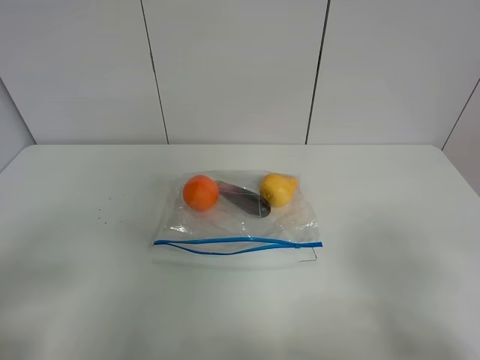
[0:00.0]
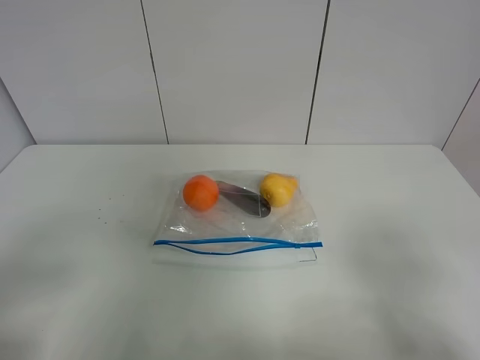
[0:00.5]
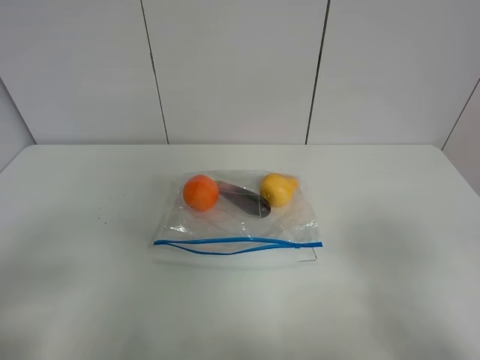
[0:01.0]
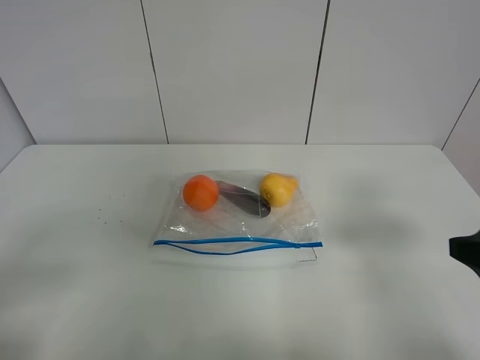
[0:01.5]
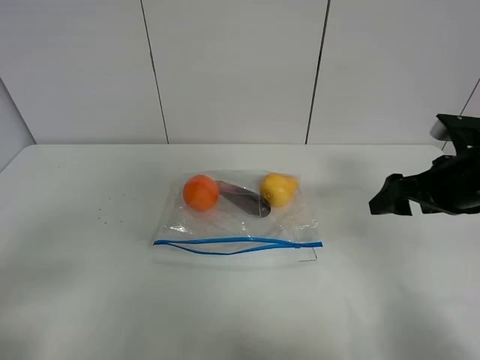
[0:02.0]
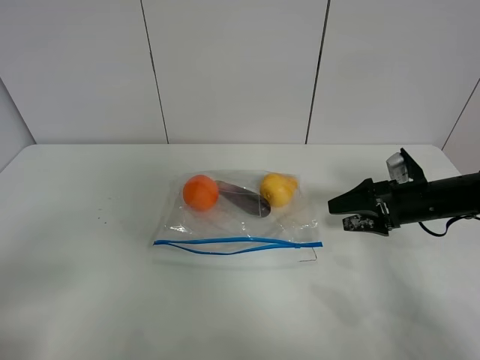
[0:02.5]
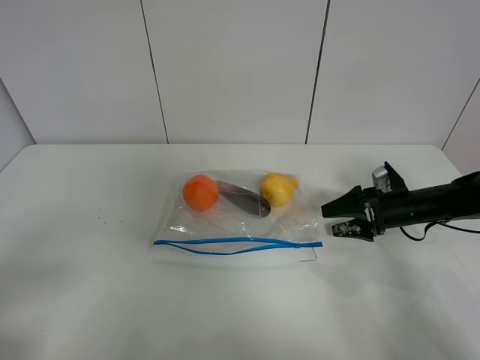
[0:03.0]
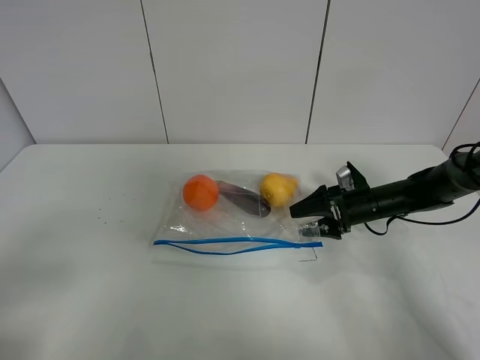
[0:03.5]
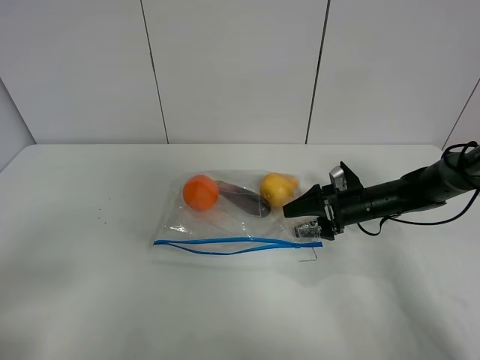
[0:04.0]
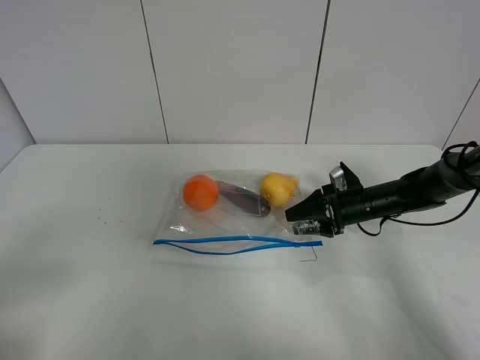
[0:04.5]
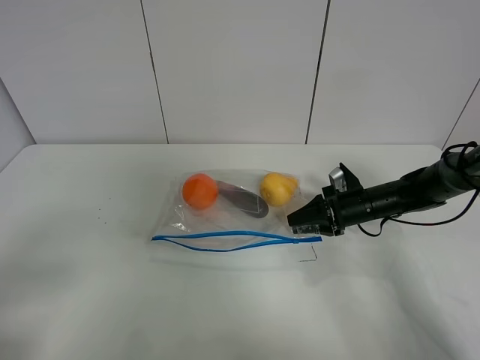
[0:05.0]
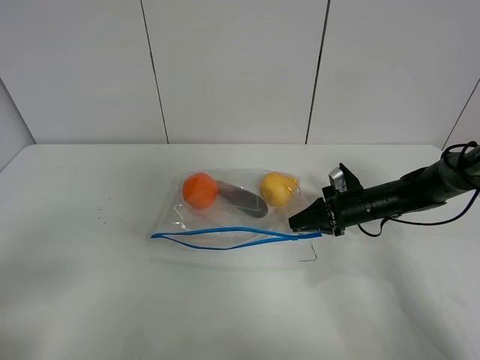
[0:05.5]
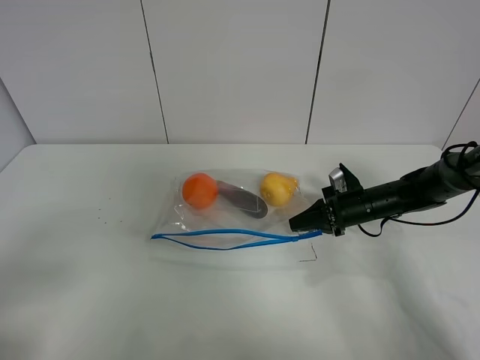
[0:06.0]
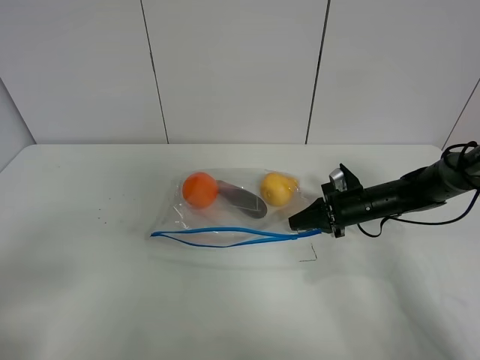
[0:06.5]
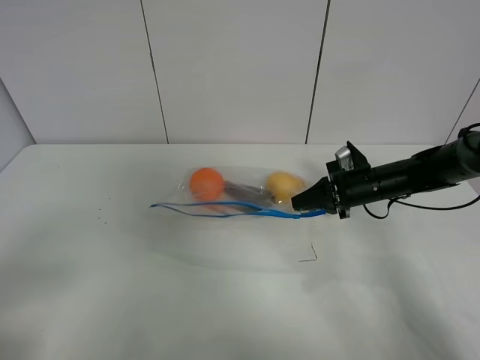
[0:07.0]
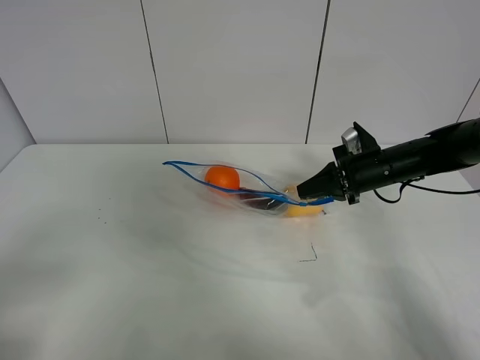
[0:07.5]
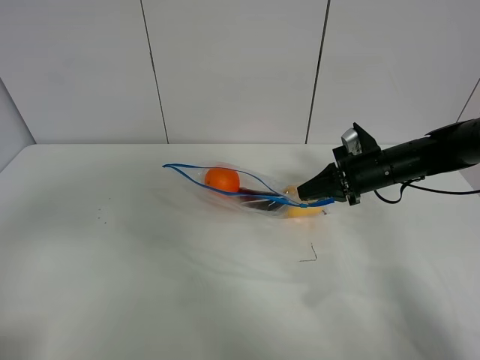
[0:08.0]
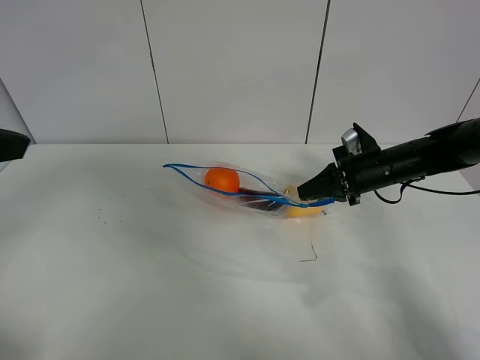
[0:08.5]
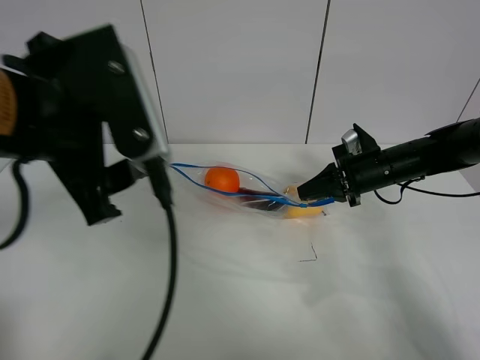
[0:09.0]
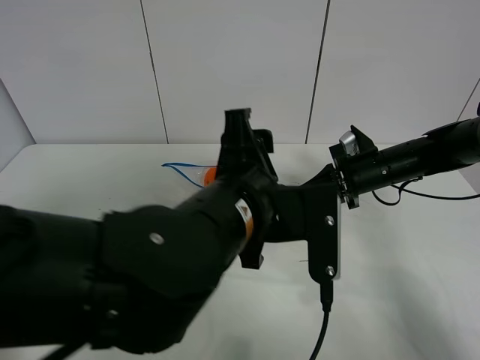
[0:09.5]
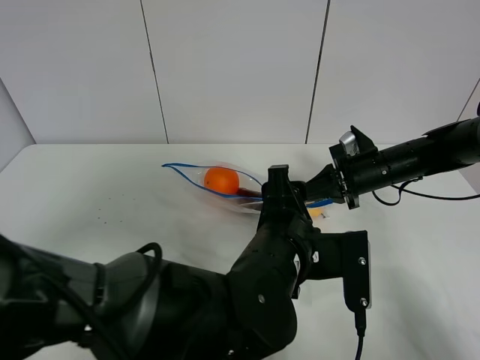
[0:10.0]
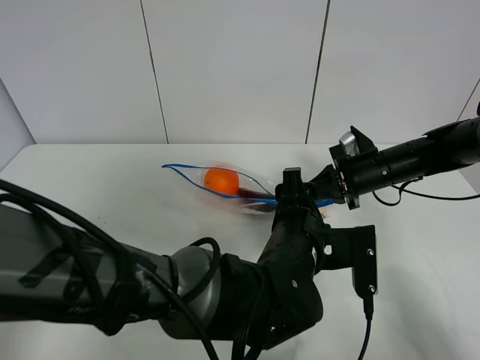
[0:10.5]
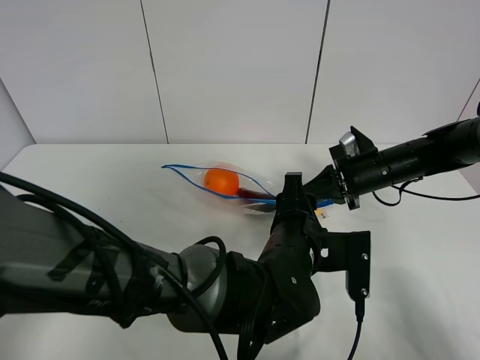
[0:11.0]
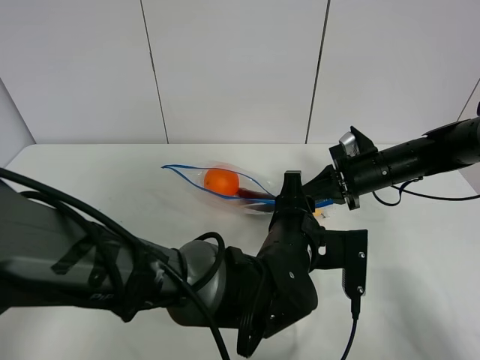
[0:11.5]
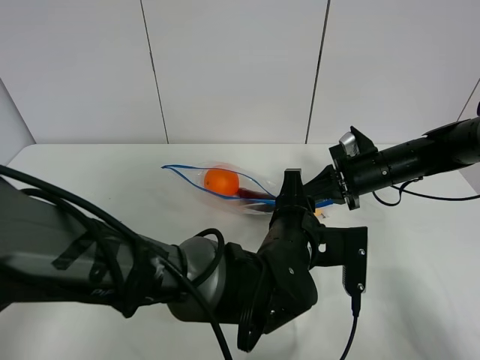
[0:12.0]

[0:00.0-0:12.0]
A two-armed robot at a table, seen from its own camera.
Step, 0:00.0 to 0:05.5: Grasp the fruit bag with right gripper.
Step, 0:06.0 to 0:07.5: Lift the fruit bag with your right gripper.
0:00.0 to 0:02.0: The right gripper moves forward, roughly 25 cm.
0:02.0 to 0:04.0: The right gripper travels downward and forward by roughly 20 cm.
0:04.0 to 0:06.0: The right gripper closes up.
0:06.0 to 0:08.0: The right gripper travels upward by approximately 10 cm. Meanwhile the left gripper shifts about 10 cm upward and forward.
0:08.0 to 0:10.0: The left gripper heads to the right and downward, covering roughly 40 cm.
0:10.0 to 0:12.0: The left gripper ends up some 5 cm from where it was.

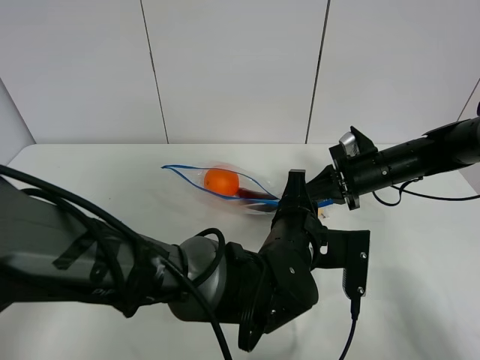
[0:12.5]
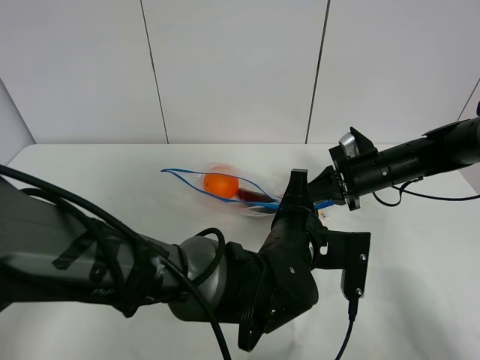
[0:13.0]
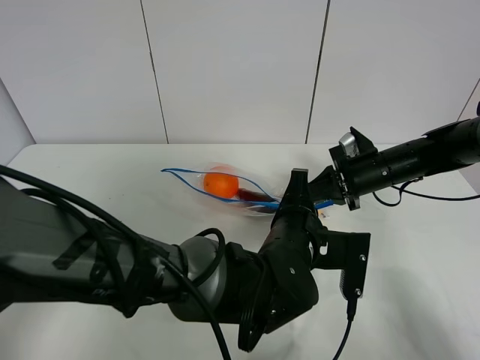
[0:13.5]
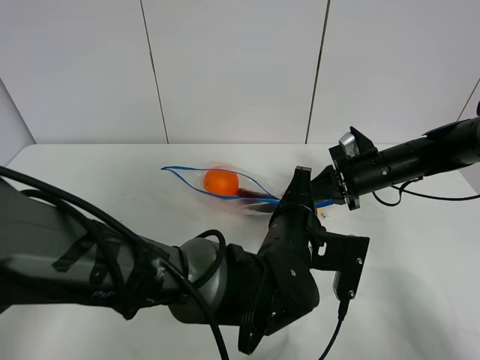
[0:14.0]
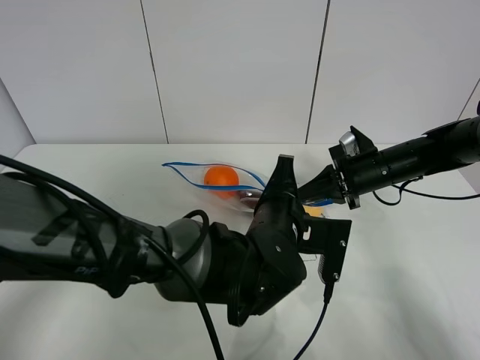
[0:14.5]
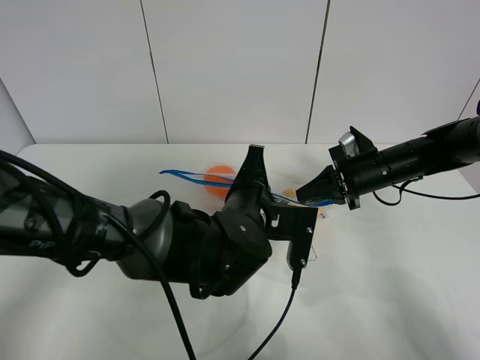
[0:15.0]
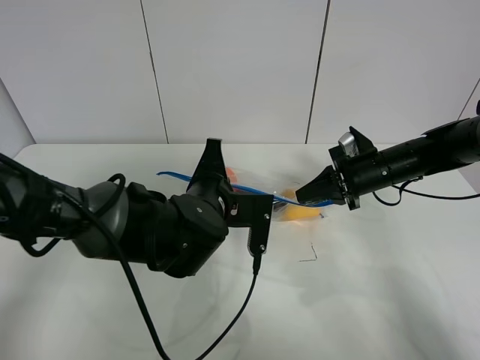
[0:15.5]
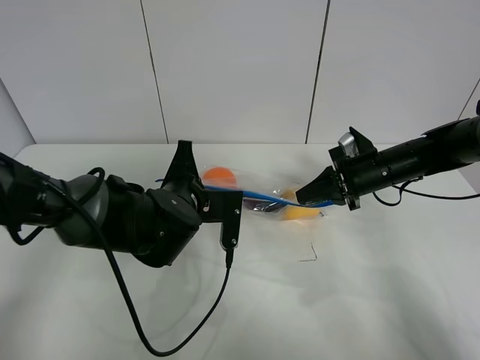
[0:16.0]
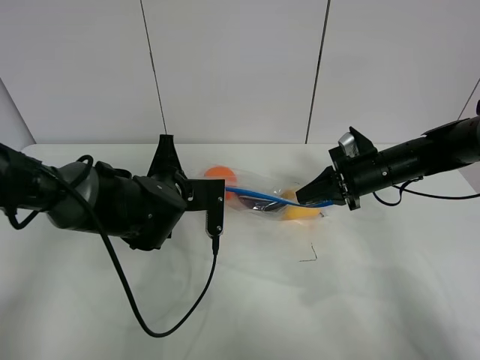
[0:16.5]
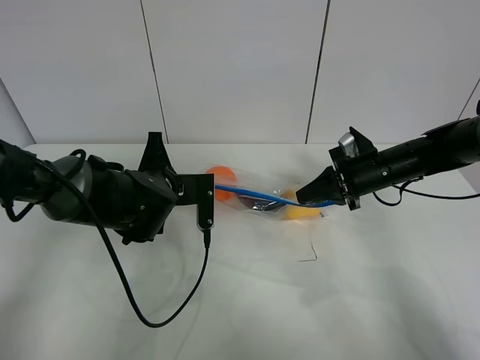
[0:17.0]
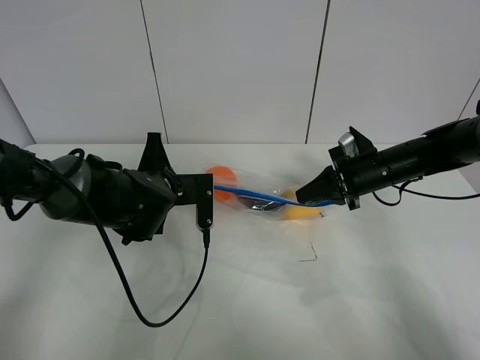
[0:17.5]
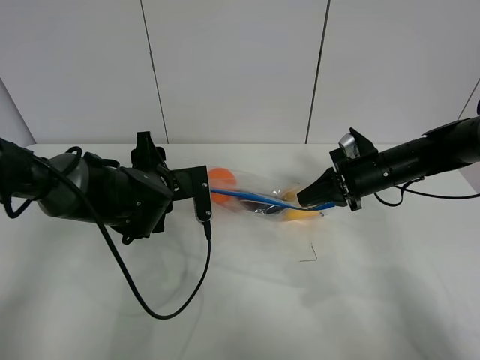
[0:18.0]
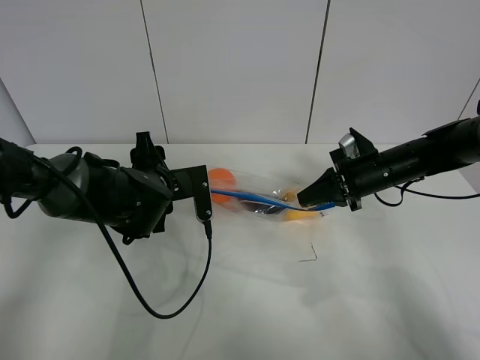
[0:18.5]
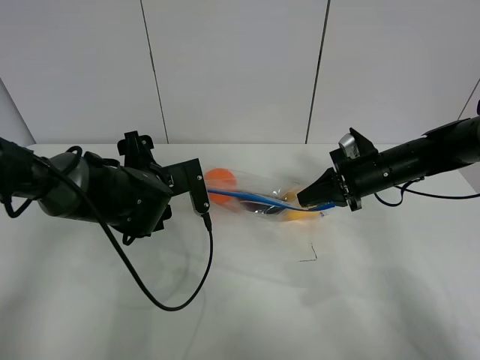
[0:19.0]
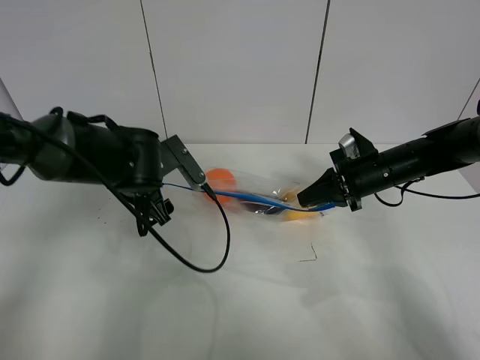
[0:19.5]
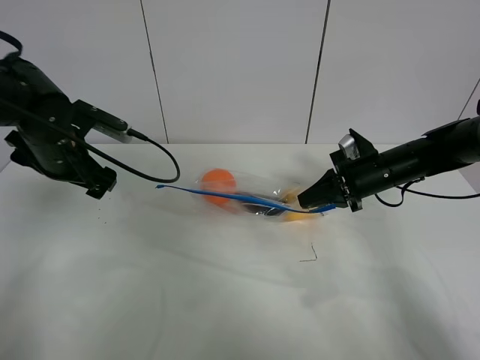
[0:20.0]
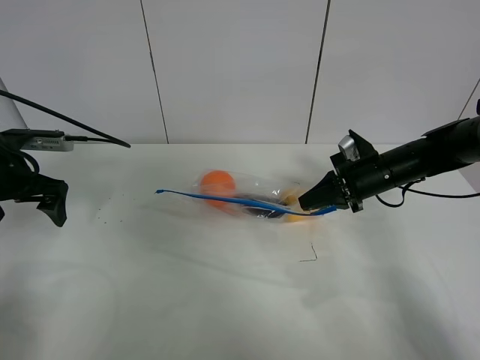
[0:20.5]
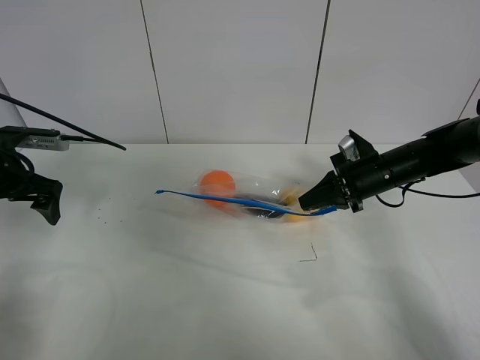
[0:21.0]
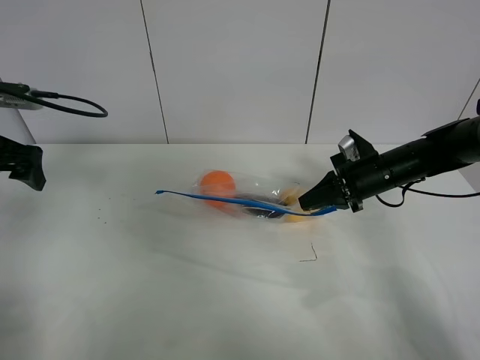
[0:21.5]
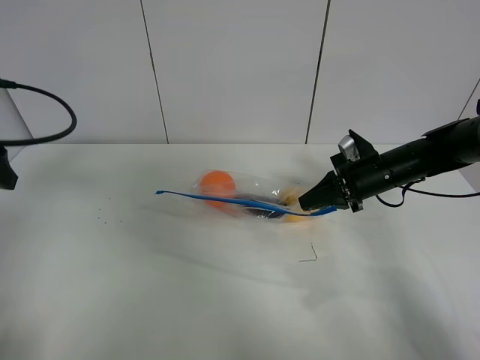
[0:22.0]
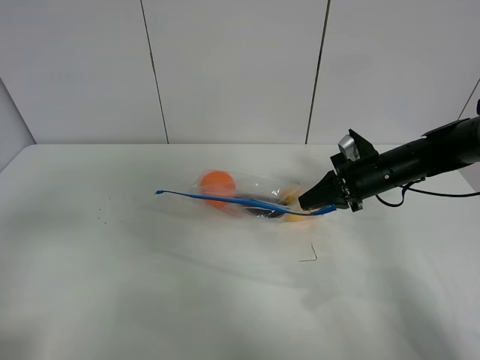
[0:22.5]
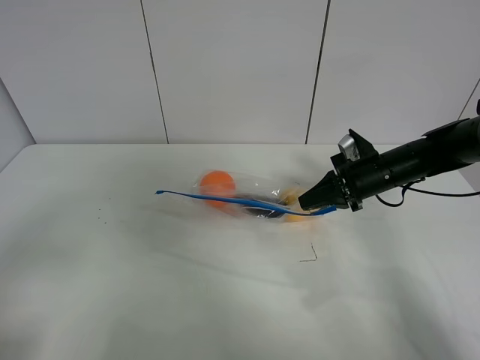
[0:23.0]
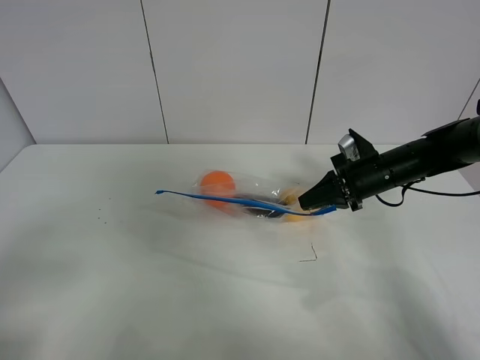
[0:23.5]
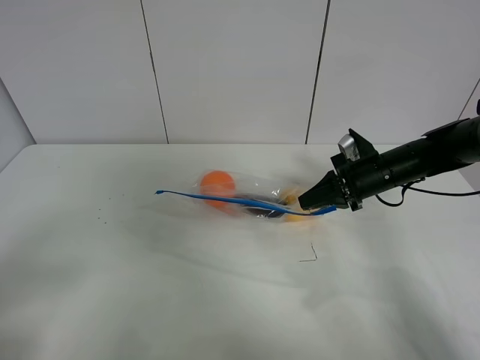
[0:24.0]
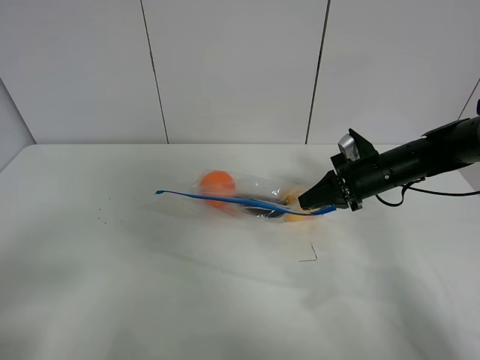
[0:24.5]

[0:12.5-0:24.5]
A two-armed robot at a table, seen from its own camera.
Step, 0:12.5 to 0:18.0: Pull the fruit bag with left gripper.
0:12.5 to 0:14.5: The grippers move only a little.
0:14.5 to 0:16.5: The left gripper heads to the left and forward, covering approximately 15 cm.
0:16.5 to 0:18.5: The left gripper opens.
0:18.5 to 0:20.5: The left gripper moves to the left, about 25 cm.
0:20.5 to 0:22.5: The left gripper shifts some 25 cm backward and upward.

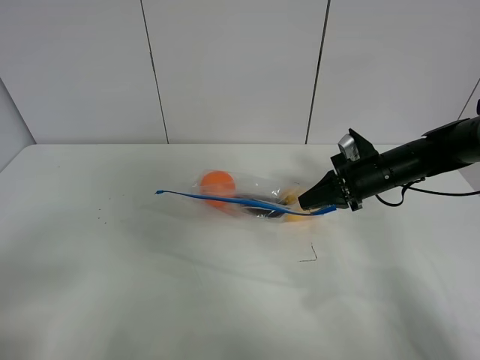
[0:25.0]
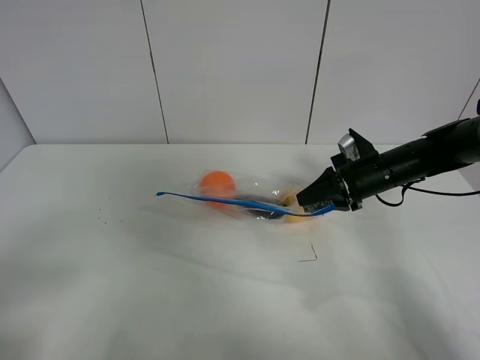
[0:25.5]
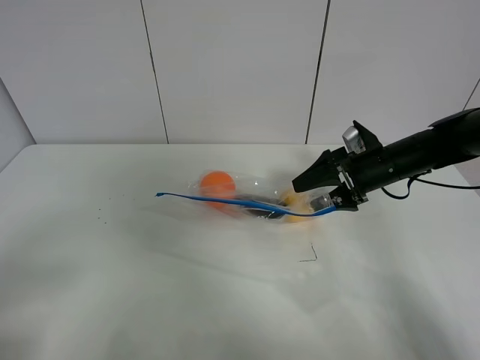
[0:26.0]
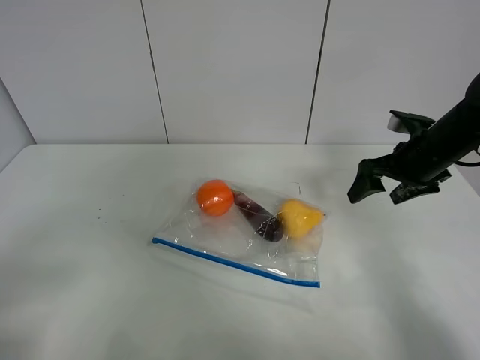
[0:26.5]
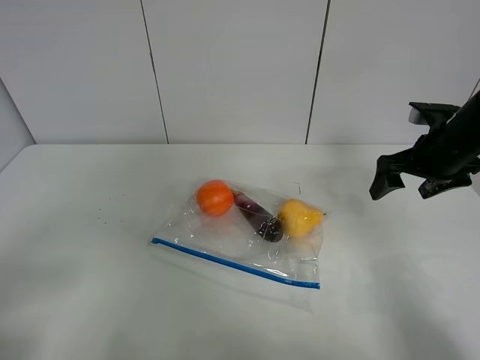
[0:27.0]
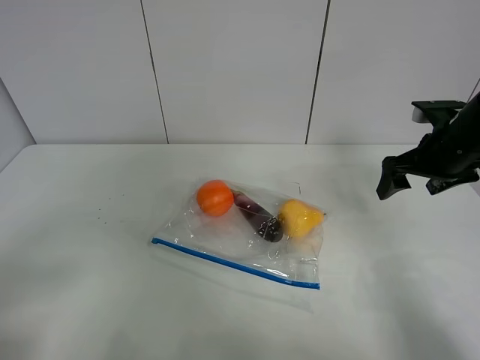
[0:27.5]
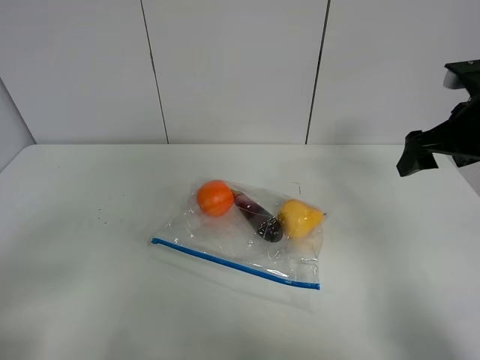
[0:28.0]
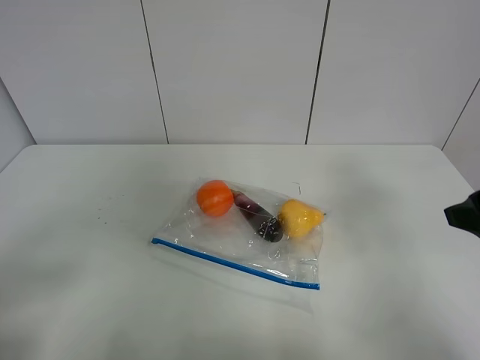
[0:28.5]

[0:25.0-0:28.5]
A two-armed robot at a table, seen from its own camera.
0:25.0 to 0:27.0: The right gripper goes about 10 cm upward and to the right, and opens its fingers.
0:27.0 to 0:28.5: The right gripper moves backward, some 20 cm.
